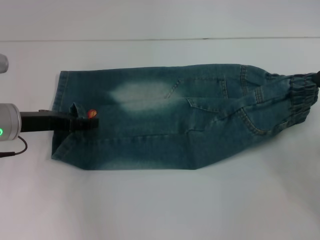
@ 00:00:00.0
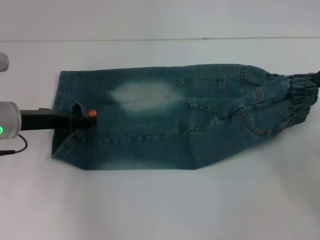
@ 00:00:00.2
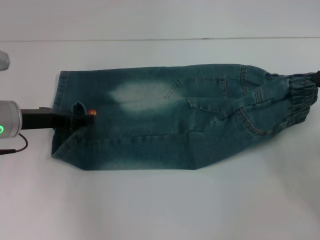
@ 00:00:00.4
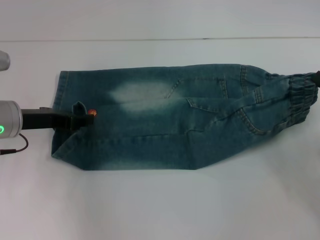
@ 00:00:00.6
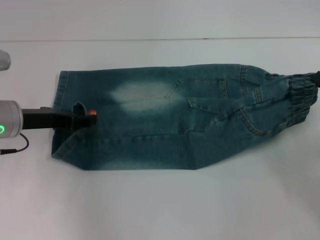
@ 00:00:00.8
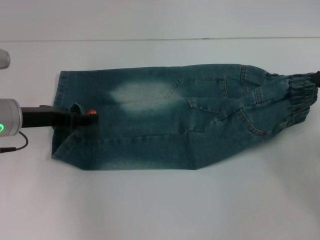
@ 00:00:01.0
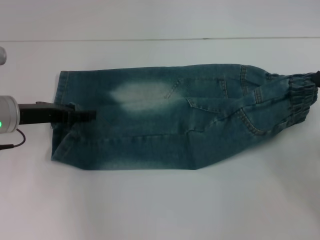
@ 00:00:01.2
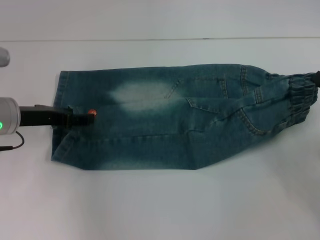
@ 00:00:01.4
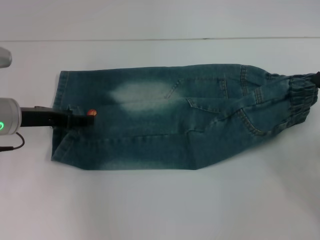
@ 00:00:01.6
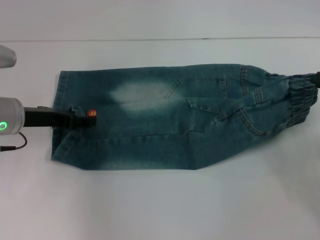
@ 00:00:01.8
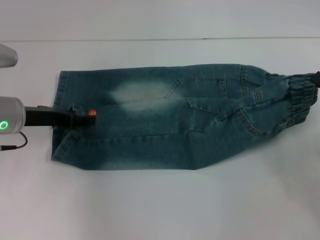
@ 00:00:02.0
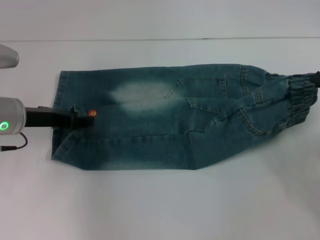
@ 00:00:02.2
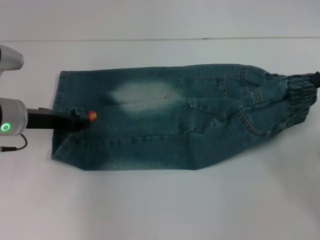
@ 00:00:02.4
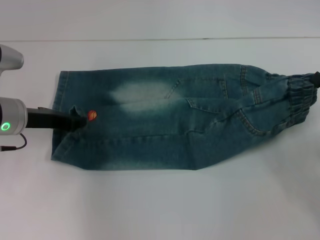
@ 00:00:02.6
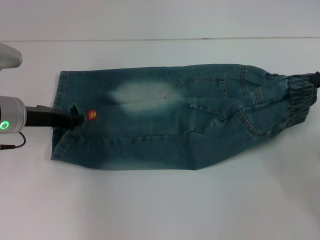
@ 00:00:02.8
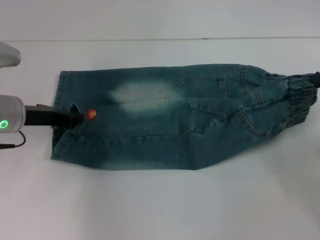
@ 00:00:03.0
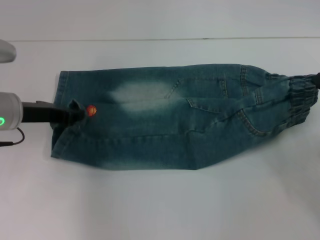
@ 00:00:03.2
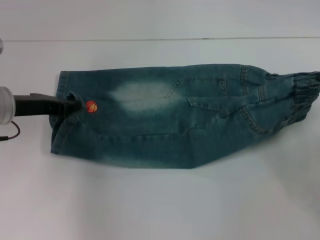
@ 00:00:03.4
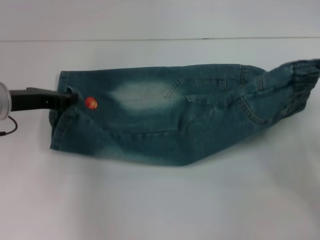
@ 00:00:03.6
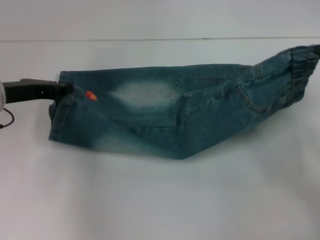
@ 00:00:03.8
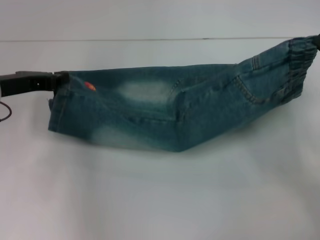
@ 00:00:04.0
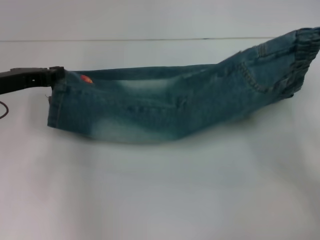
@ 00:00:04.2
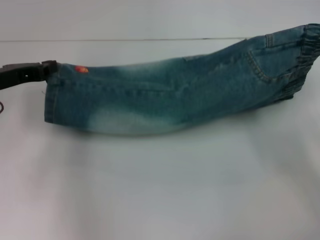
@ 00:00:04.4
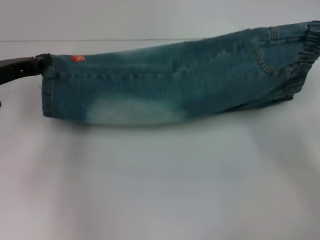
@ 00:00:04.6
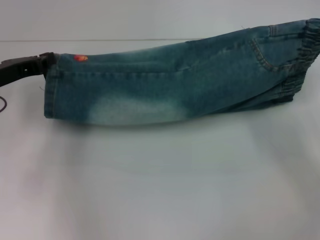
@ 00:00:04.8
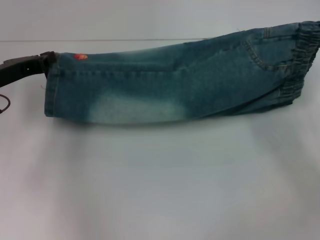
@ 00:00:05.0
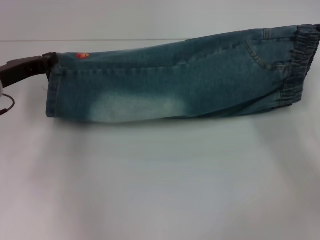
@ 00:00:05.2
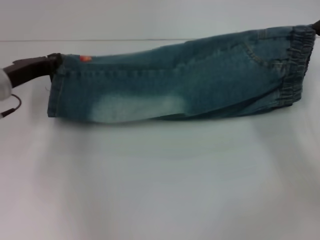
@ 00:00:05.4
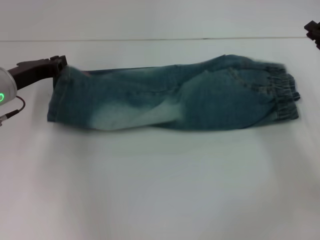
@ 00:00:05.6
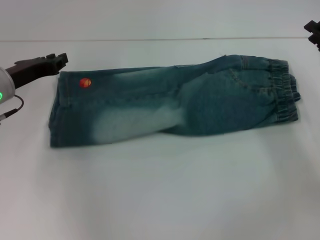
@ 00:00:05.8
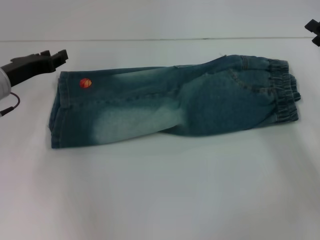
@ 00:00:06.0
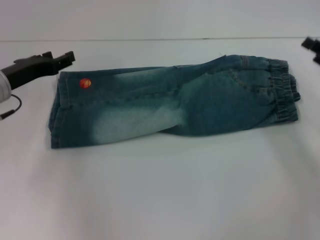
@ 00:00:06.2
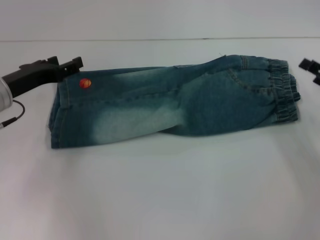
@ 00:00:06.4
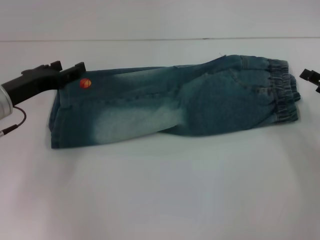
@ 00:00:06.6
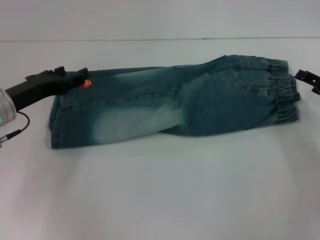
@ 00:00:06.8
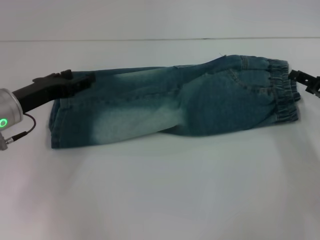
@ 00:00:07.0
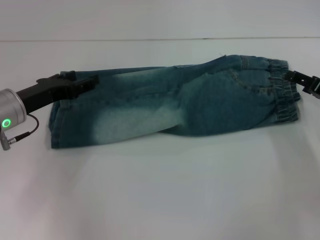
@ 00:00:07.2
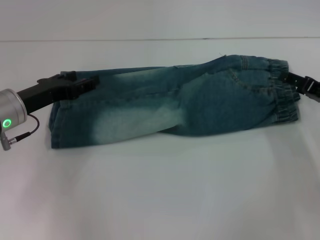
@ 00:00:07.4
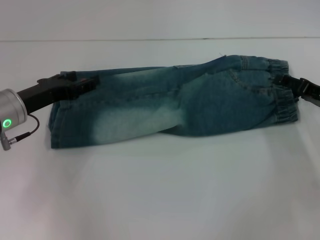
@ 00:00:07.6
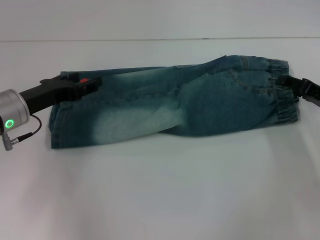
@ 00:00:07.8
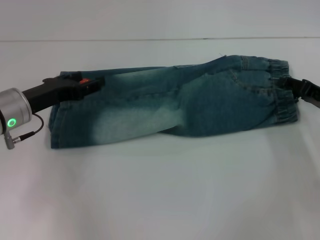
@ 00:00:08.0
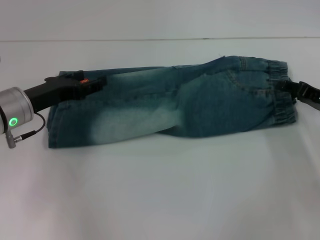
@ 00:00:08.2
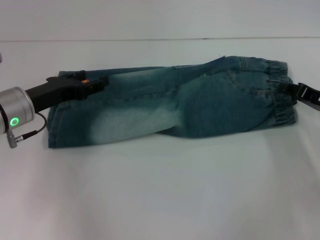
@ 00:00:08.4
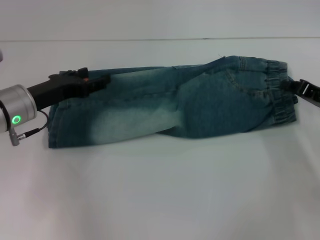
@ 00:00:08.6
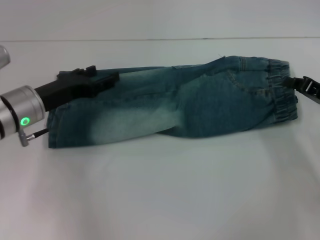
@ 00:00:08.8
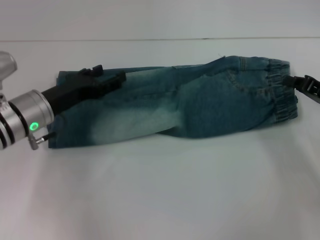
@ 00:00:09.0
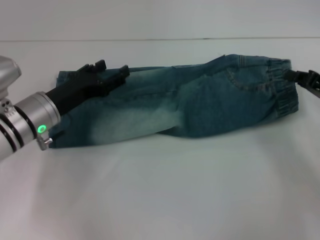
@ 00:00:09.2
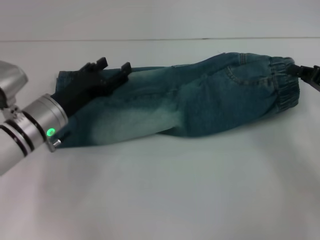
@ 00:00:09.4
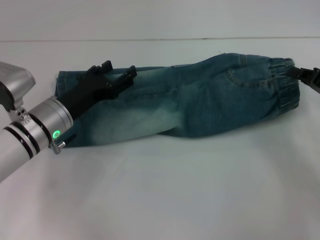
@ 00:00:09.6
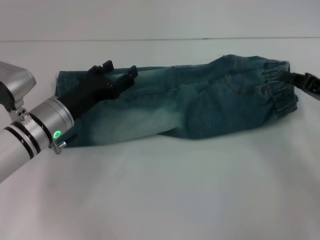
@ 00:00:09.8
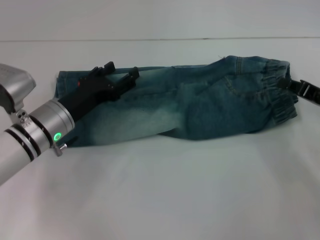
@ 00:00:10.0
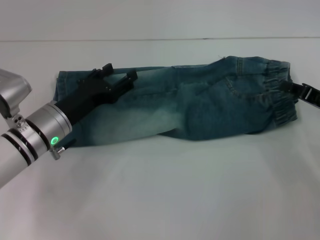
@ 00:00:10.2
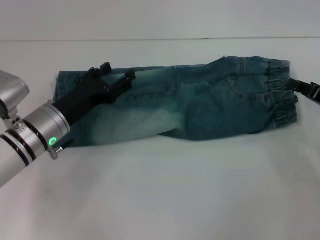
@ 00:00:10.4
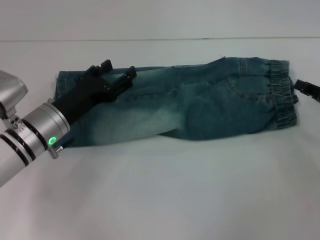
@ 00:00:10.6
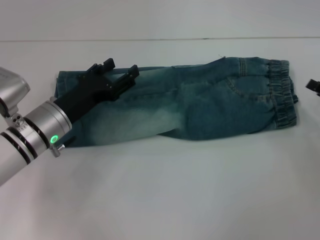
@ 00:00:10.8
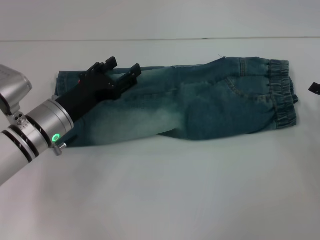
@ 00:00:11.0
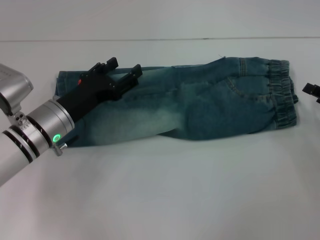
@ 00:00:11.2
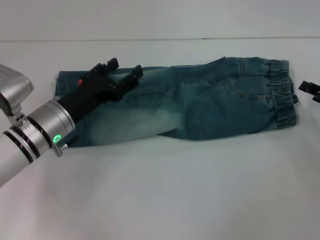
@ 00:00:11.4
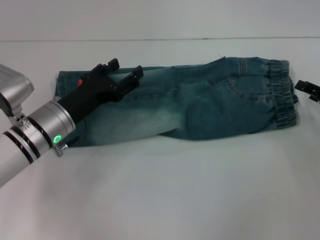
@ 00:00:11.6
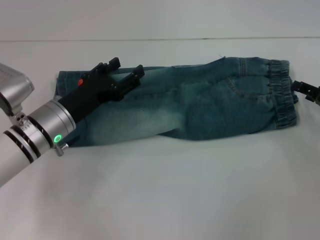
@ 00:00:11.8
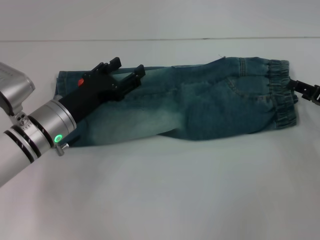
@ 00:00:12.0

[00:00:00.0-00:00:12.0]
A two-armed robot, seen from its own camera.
Step, 00:00:00.0 to 00:00:05.6: Fold upward with your right hand.
00:00:00.0 to 00:00:01.6: The left gripper closes and opens again.
00:00:01.6 to 00:00:03.0: The left gripper closes its fingers.
00:00:03.0 to 00:00:04.4: The right gripper changes place by approximately 5 cm.
00:00:04.4 to 00:00:06.0: The right gripper opens.
00:00:06.0 to 00:00:07.6: The left gripper opens its fingers. Meanwhile the right gripper opens.
00:00:07.6 to 00:00:09.0: The right gripper closes up.
00:00:09.0 to 00:00:10.4: The grippers stay close to where they were, moving slightly.
00:00:10.4 to 00:00:12.0: The right gripper opens.

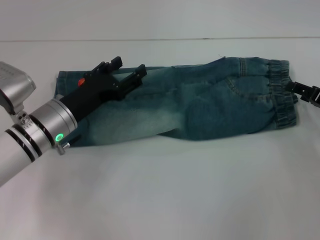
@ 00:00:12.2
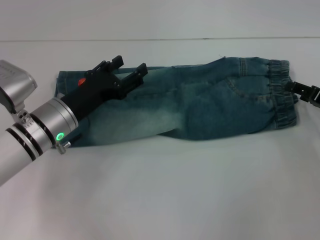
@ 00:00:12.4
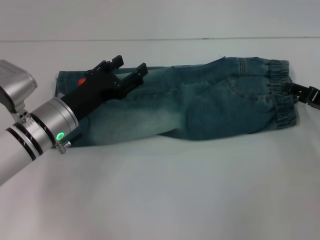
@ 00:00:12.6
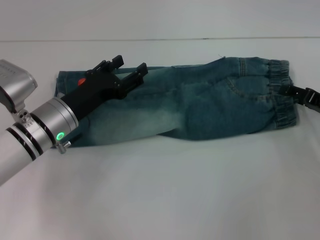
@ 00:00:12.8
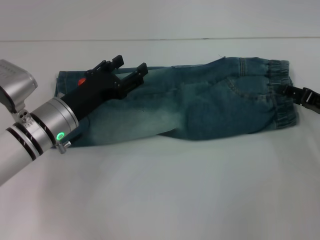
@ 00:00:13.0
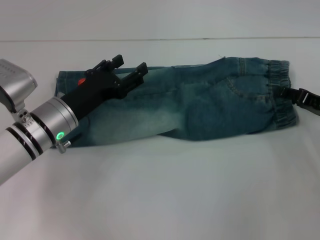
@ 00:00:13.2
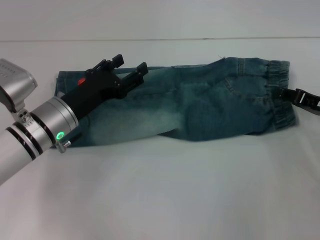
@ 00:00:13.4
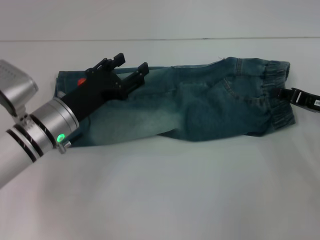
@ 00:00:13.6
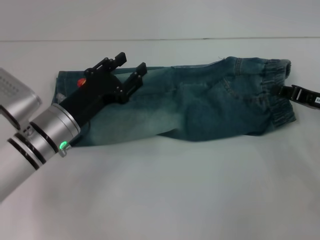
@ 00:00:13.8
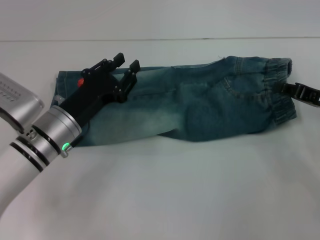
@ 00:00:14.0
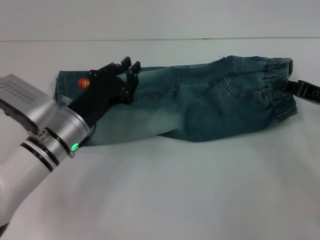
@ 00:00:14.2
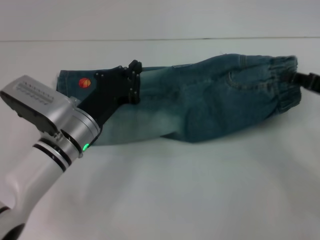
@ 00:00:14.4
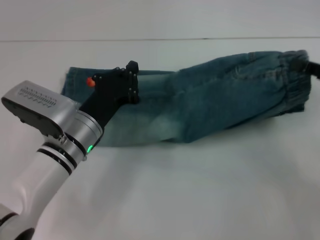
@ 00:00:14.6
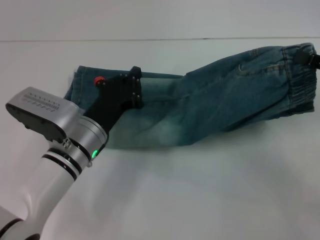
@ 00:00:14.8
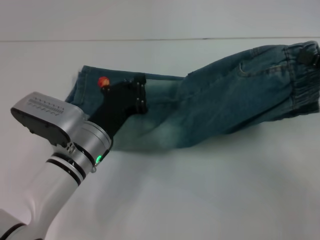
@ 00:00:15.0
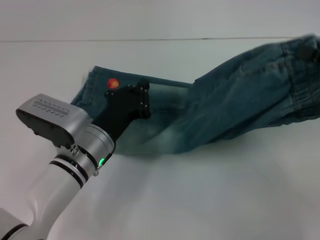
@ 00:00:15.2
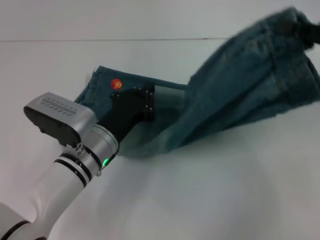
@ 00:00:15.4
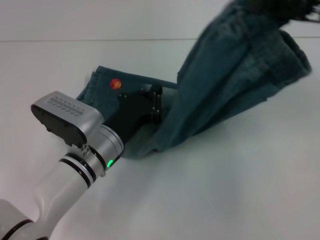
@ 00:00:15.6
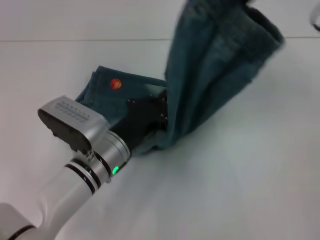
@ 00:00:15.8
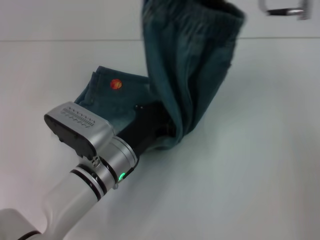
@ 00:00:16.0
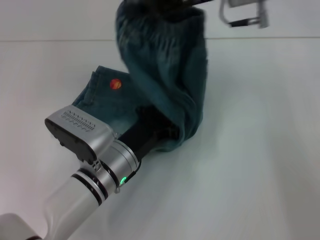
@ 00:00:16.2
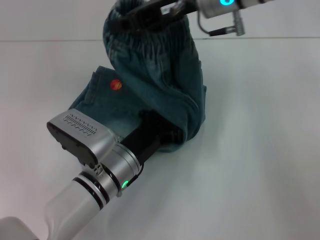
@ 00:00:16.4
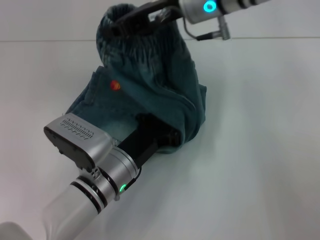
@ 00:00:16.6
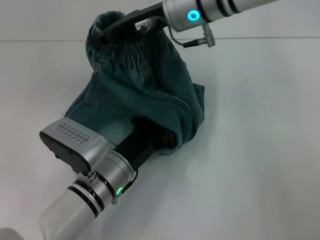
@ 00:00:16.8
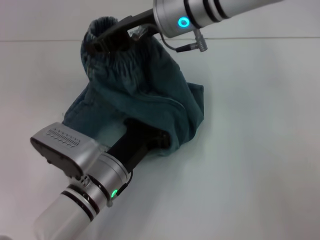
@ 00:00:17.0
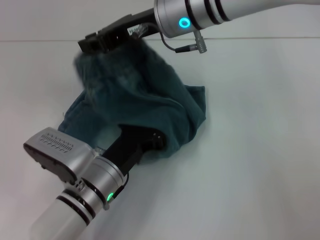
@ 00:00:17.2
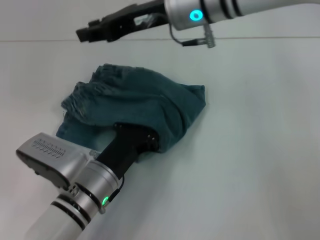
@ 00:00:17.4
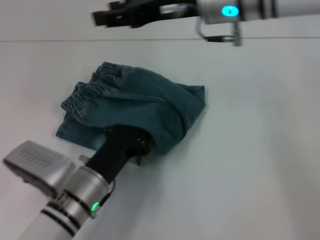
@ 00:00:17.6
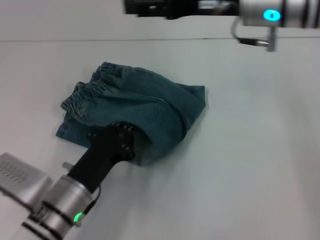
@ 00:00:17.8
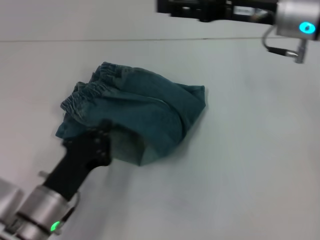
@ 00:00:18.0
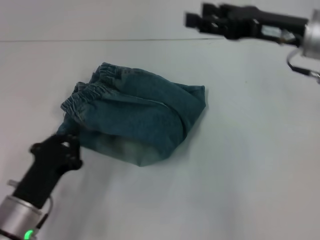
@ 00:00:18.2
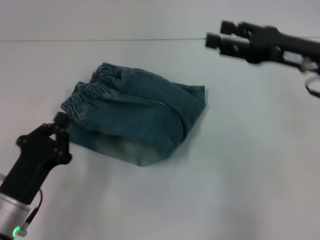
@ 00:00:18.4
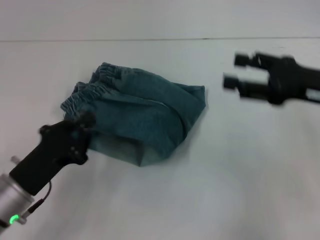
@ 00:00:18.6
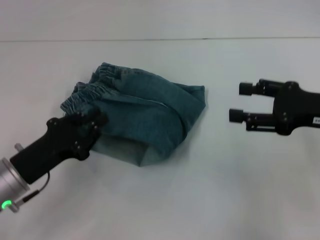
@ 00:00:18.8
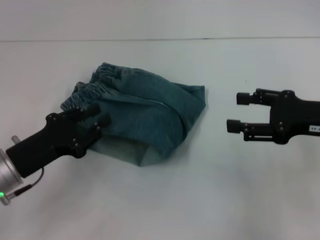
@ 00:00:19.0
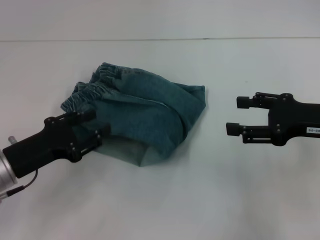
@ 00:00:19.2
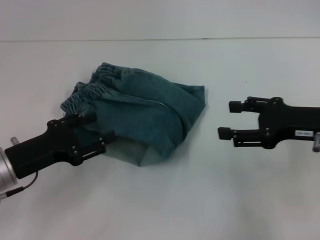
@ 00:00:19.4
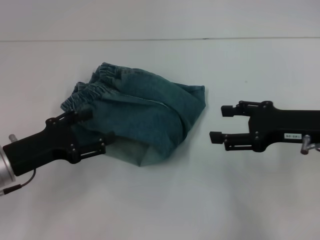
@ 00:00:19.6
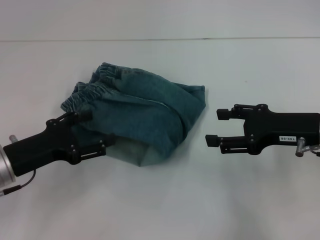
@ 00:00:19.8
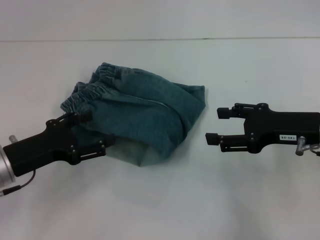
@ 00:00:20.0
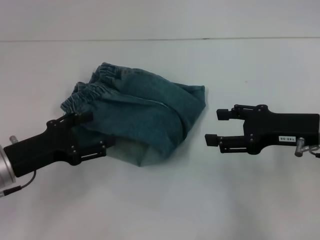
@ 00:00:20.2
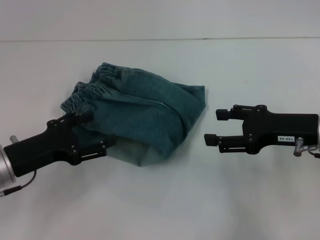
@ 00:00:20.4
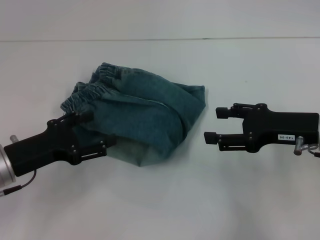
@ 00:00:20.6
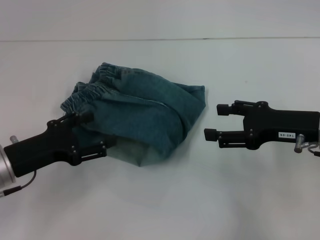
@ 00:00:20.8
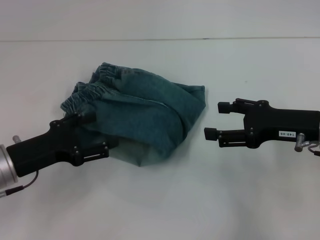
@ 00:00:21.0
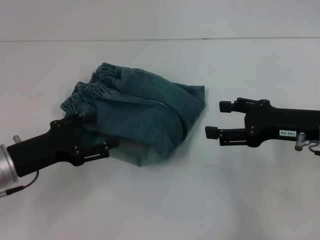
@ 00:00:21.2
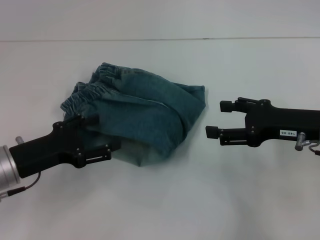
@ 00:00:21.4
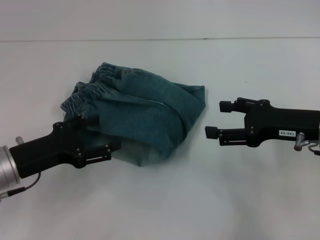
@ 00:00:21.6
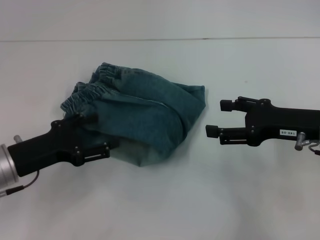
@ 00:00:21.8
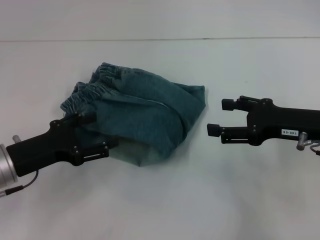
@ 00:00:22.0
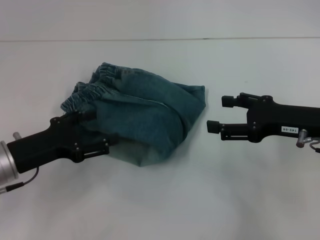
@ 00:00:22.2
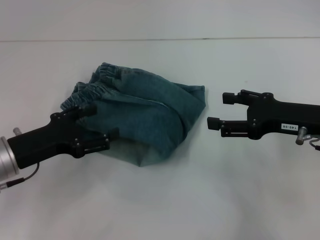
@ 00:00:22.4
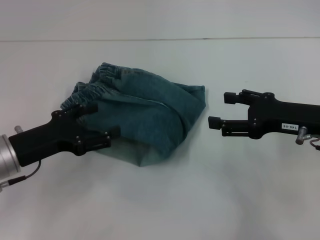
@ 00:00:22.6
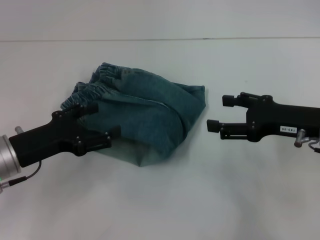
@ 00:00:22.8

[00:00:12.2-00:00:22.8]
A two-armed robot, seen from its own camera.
Step, 00:00:14.2 to 00:00:17.2: Fold to the left with your right hand.
00:00:12.2 to 00:00:13.8: The right gripper closes its fingers.
00:00:13.8 to 00:00:15.2: The left gripper is displaced to the right by roughly 5 cm, and closes up. Meanwhile the right gripper moves upward, roughly 10 cm.
00:00:15.2 to 00:00:16.8: The right gripper goes roughly 30 cm to the left and forward.
00:00:16.8 to 00:00:18.2: The left gripper is displaced to the left and backward by roughly 15 cm. Meanwhile the right gripper goes roughly 15 cm to the right, and opens its fingers.
00:00:18.2 to 00:00:19.8: The left gripper travels forward, upward and to the left by approximately 10 cm, and opens. Meanwhile the right gripper shifts about 10 cm downward and backward.
00:00:19.8 to 00:00:21.2: There are only small adjustments of the grippers.
00:00:21.2 to 00:00:22.8: Both grippers stay about where they are.
